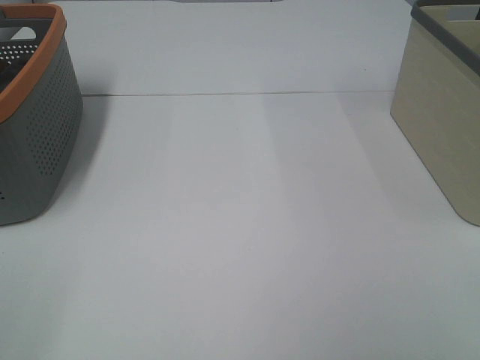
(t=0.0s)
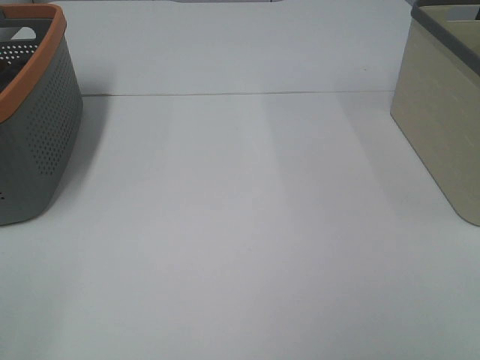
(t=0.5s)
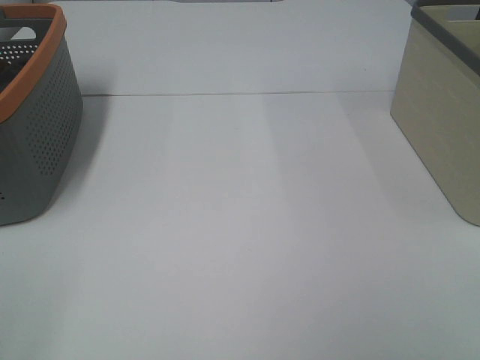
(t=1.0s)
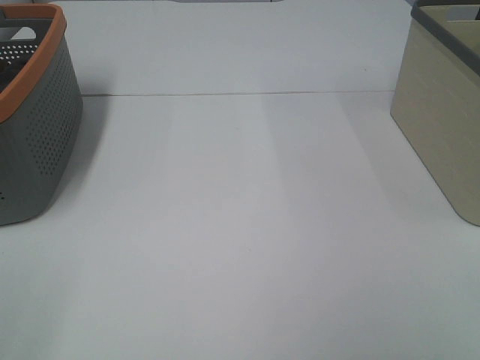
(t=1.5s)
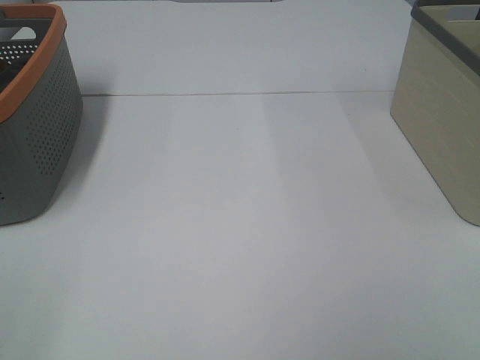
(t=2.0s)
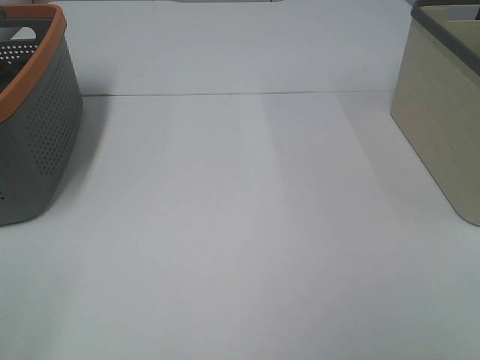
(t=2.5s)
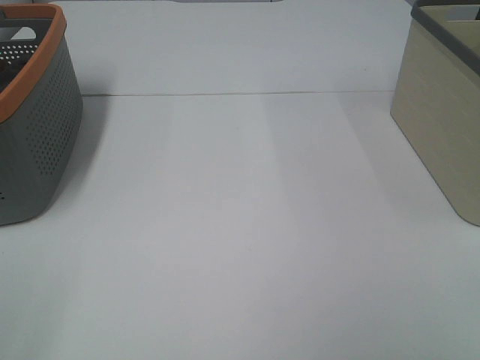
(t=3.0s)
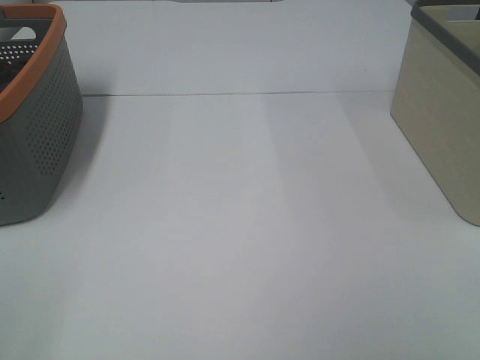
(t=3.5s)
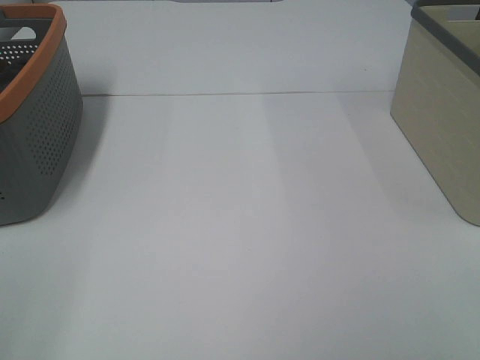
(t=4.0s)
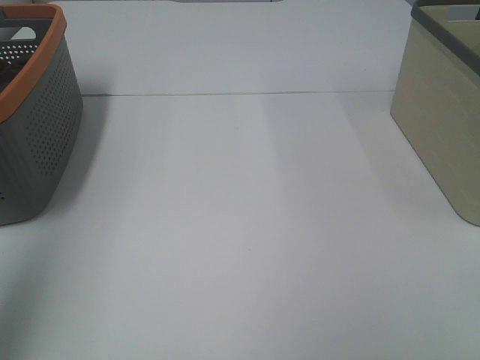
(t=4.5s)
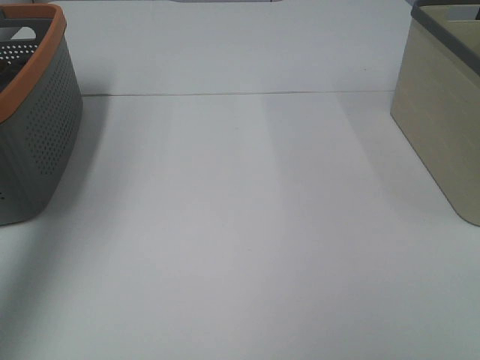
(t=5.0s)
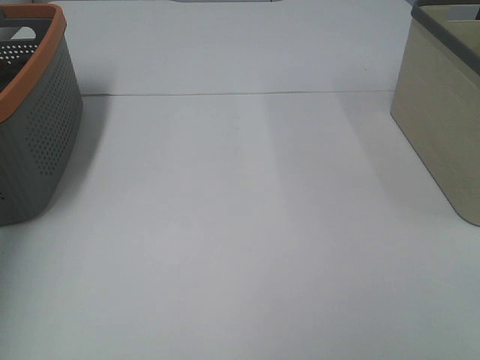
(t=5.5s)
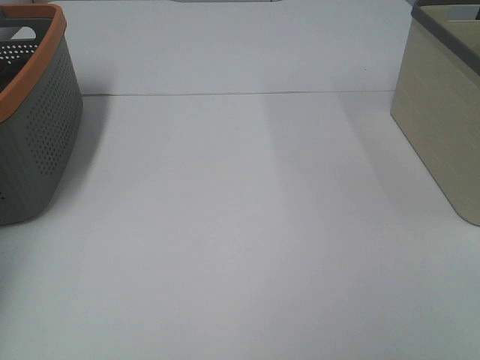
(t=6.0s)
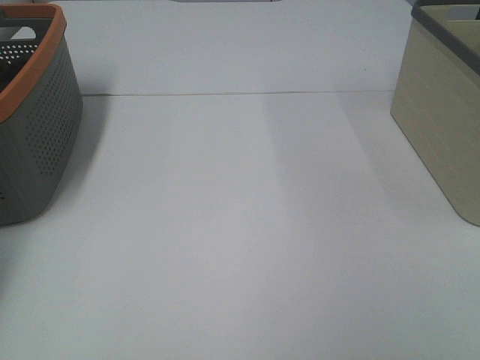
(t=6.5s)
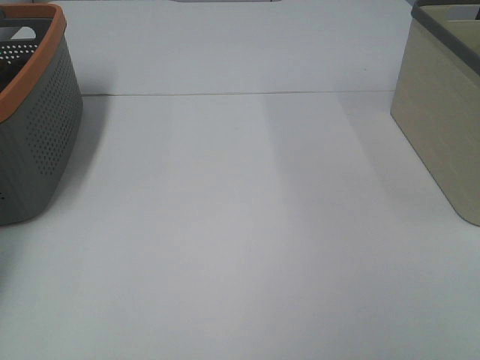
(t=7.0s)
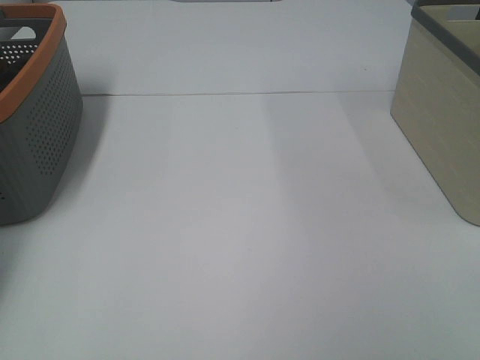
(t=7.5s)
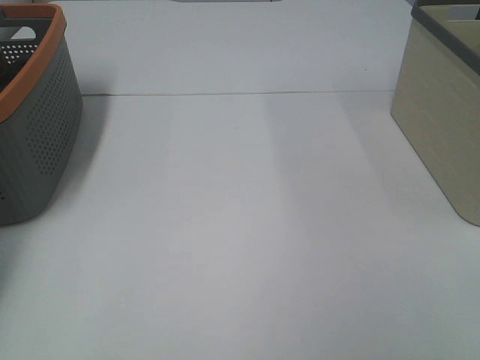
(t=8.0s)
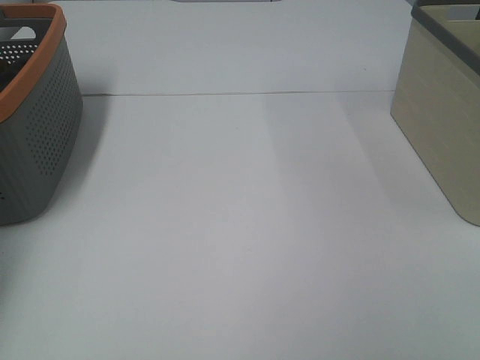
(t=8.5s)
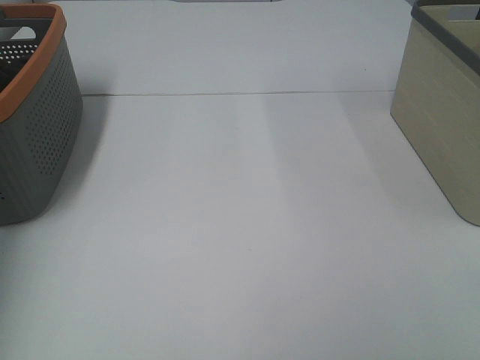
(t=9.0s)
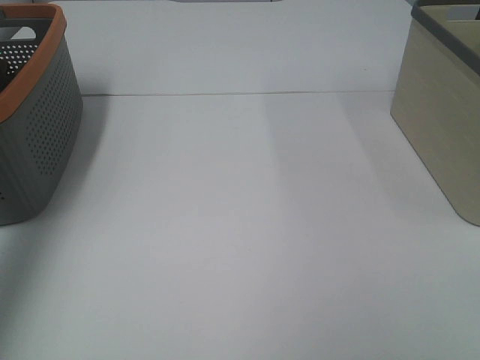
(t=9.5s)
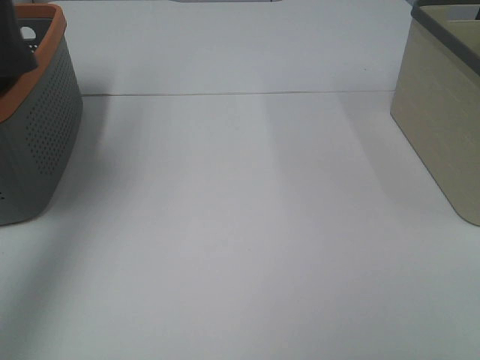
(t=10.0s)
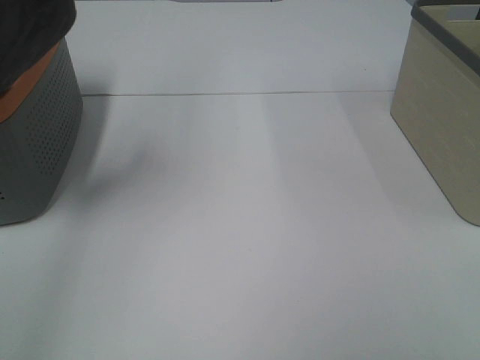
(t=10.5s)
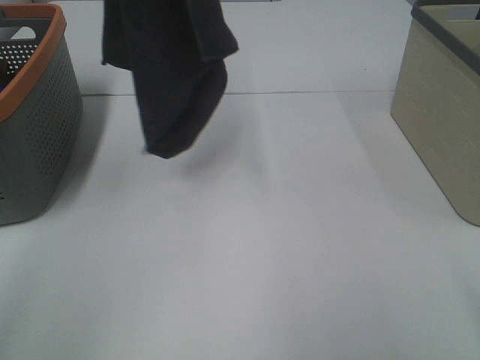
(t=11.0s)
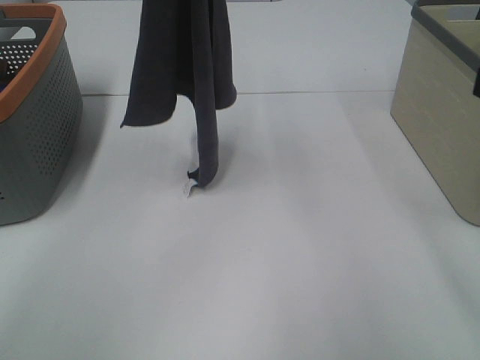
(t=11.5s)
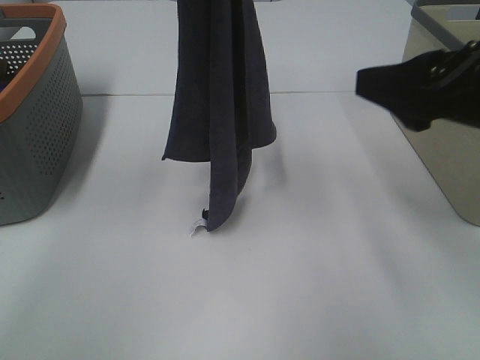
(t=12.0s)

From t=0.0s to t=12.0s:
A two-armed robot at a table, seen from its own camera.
Task of the whole recording: Remove the towel and place it.
From t=0.0s to t=2.0s: The two grippers keep their place.
From t=8.0s to t=10.0s: The left gripper is displaced upward and backward by some 40 cm.
From t=10.0s to t=12.0s: The right gripper heads forward, covering approximately 20 cm; the left gripper goes approximately 25 cm to the right and downward.

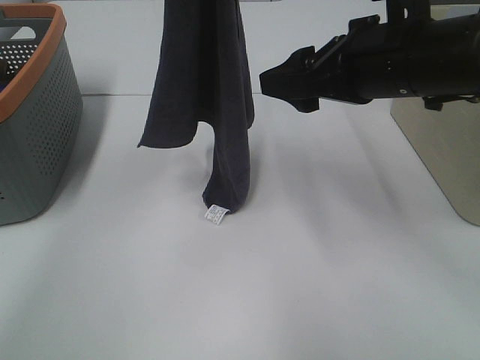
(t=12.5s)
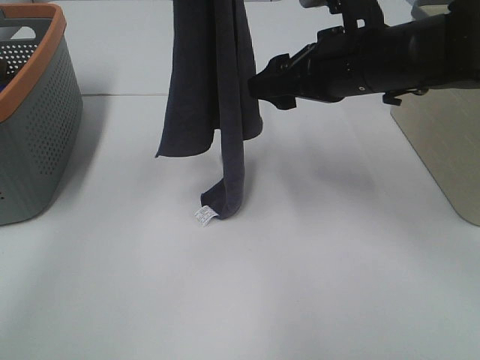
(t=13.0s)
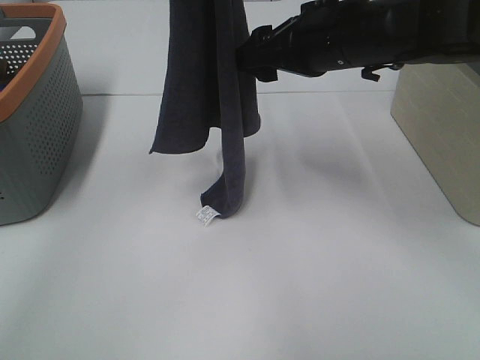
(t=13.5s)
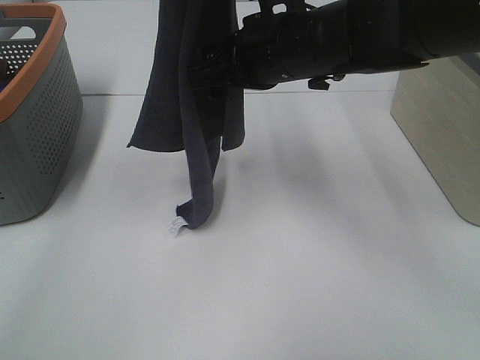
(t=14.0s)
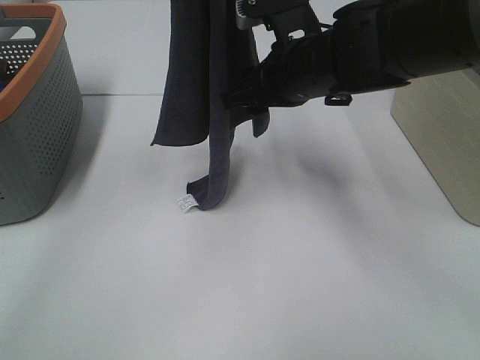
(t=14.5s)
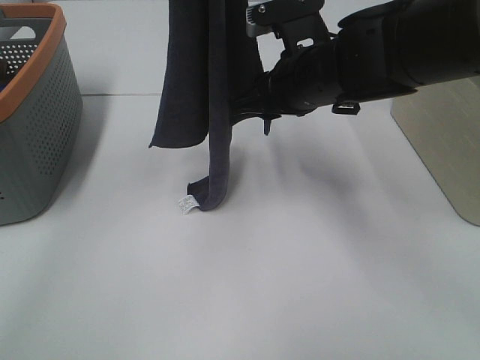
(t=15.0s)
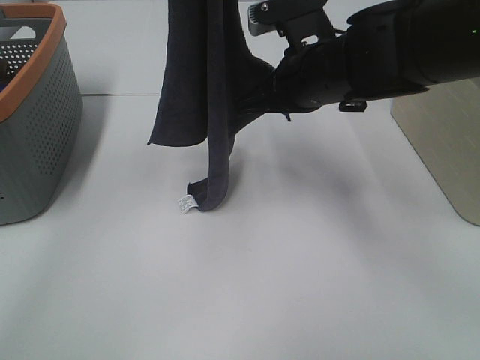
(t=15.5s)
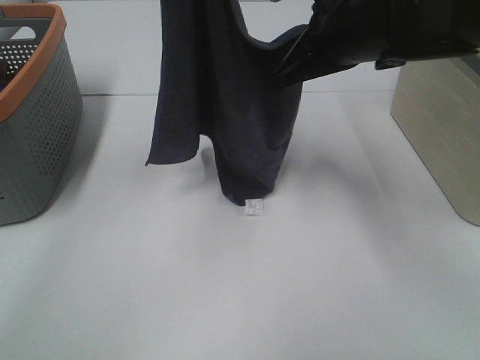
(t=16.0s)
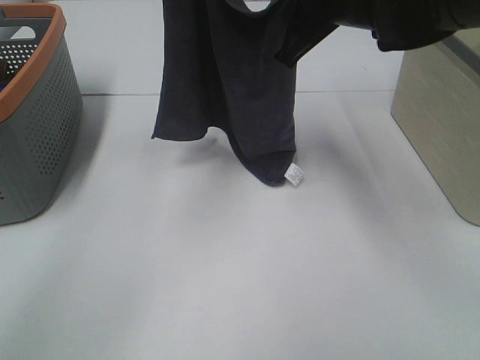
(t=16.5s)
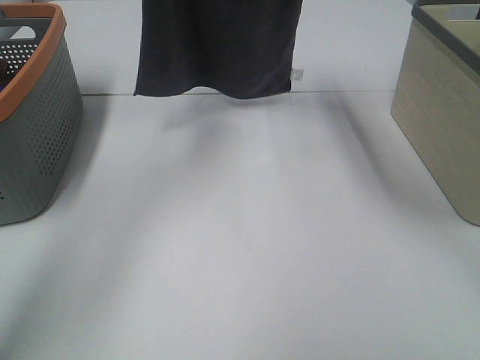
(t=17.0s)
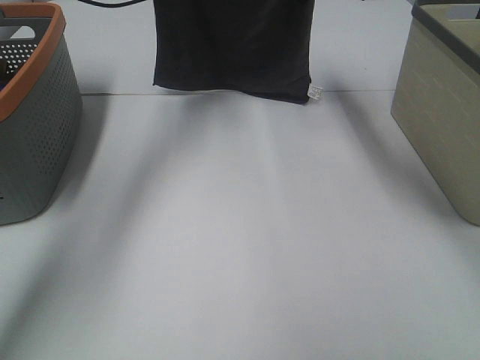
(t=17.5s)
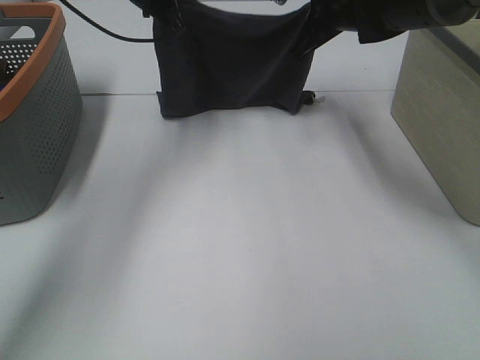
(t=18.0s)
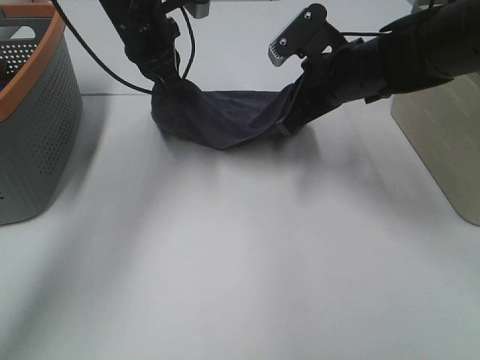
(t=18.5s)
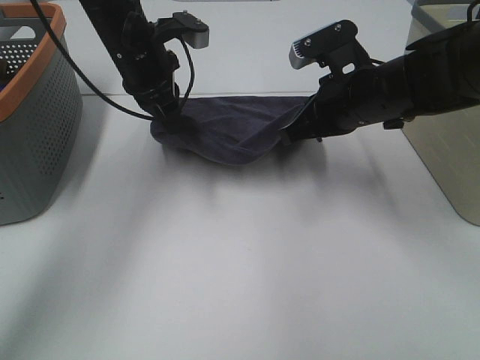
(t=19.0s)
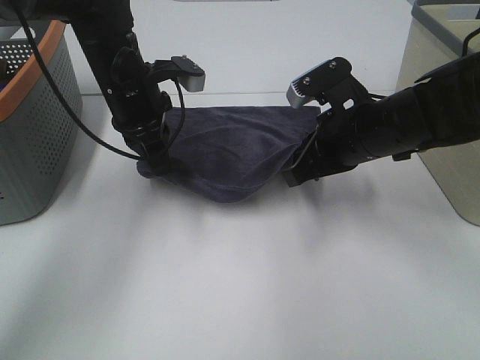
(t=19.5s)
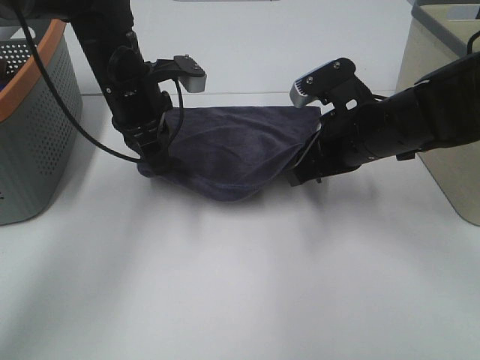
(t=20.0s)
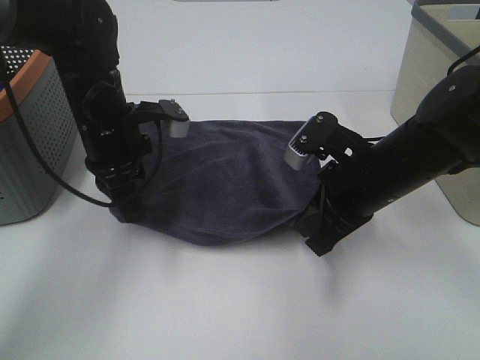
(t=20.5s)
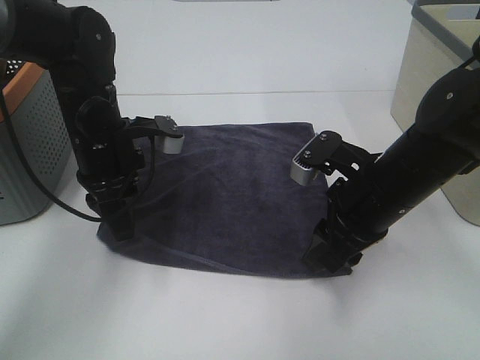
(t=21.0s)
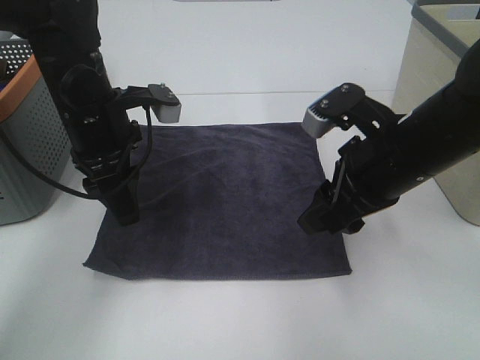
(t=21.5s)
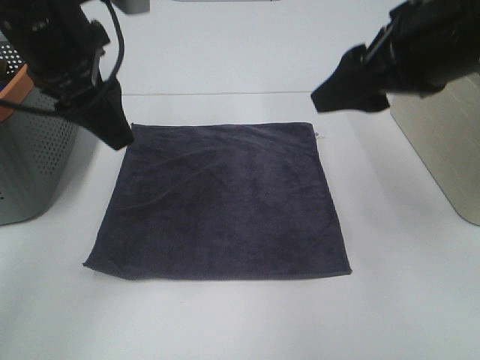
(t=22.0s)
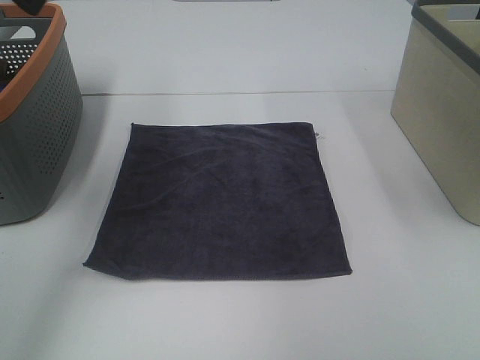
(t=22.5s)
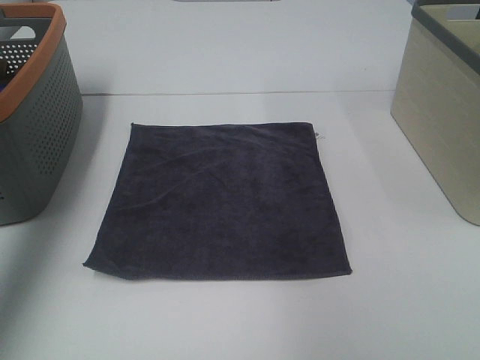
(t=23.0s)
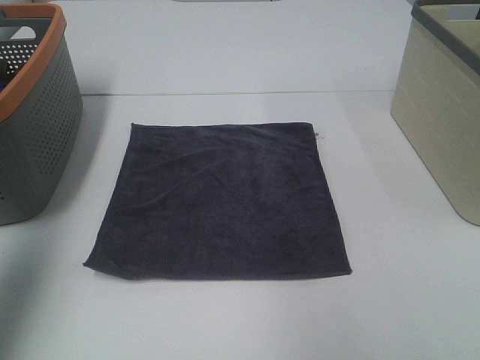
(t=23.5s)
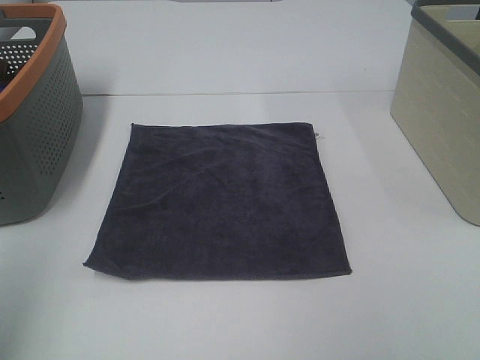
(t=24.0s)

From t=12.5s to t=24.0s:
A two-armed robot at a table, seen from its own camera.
Task of the whole recording: Remove the towel and place it.
Step, from t=14.0s to t=16.5s: Right hand: spread the grey towel flat on the table.
Step, from t=14.0s to t=17.0s: Left hand: spread the grey towel flat on the table.
From t=12.5s to t=14.5s: The right gripper is displaced to the left and forward by about 10 cm.
From t=14.5s to t=16.5s: The right gripper moves upward, roughly 10 cm, and closes its fingers, while the left gripper heads forward, covering some 10 cm.
From t=16.5s to t=18.5s: The right gripper goes approximately 10 cm downward, and goes forward and returns, about 15 cm each way, while the left gripper heads downward, covering about 15 cm.
From t=18.5s to t=20.0s: The right gripper is displaced backward by some 5 cm. Meanwhile the left gripper heads backward and downward, covering roughly 10 cm.
From t=20.0s to t=22.0s: Both grippers move upward and backward, some 15 cm. The left gripper opens. The right gripper opens up.
From t=22.0s to t=24.0s: The right gripper heads backward and to the right, covering about 25 cm. Meanwhile the left gripper travels backward and to the left by some 30 cm.

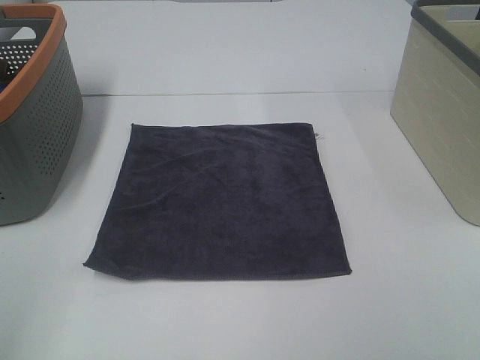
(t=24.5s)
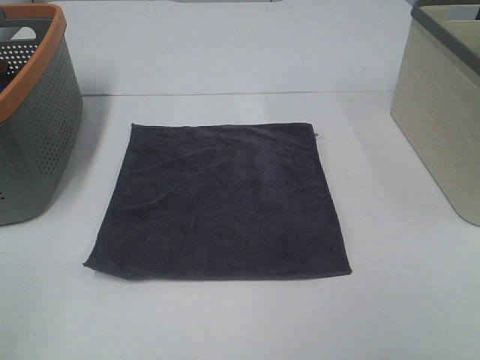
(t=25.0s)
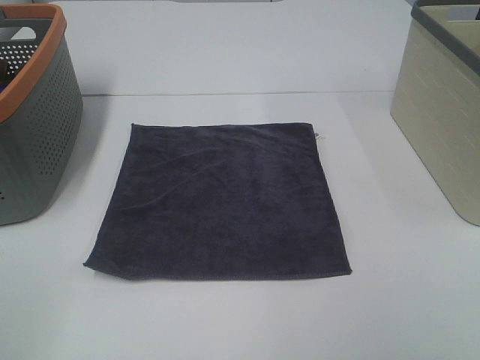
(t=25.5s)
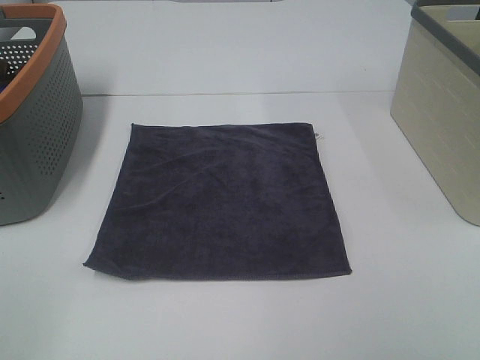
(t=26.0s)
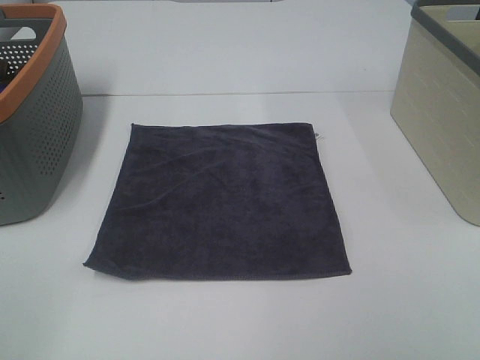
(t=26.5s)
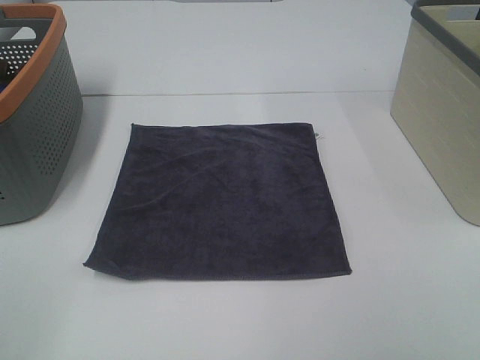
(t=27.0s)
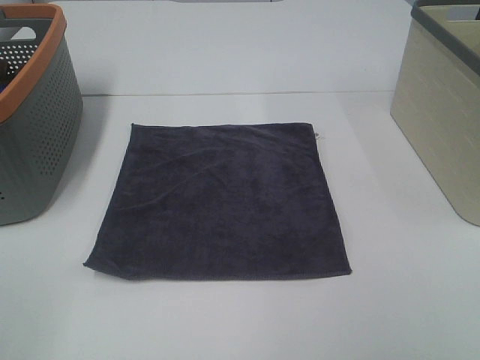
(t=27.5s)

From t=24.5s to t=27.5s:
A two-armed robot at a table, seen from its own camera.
Task of the whole recording: Remove the towel and place it.
From t=26.0s to t=27.5s: Both grippers stay about where they are.
